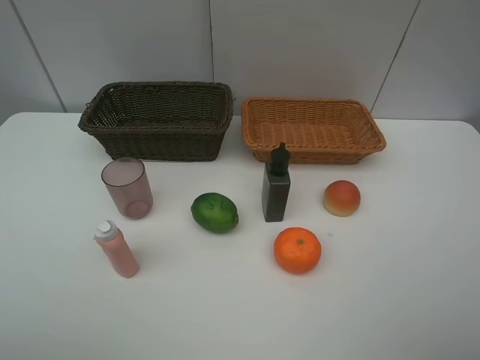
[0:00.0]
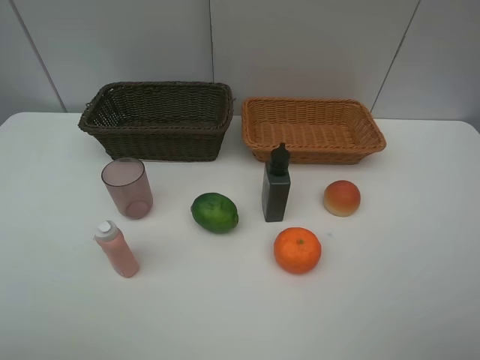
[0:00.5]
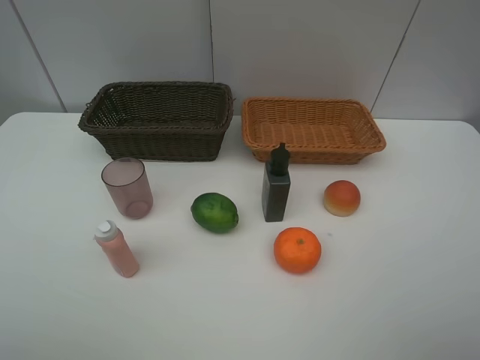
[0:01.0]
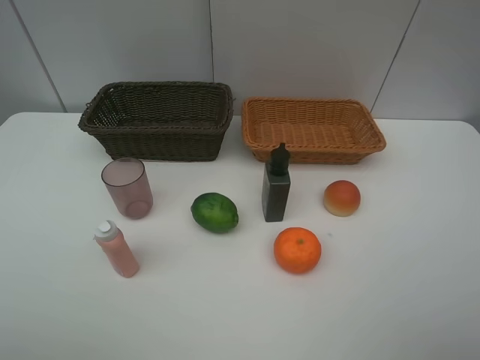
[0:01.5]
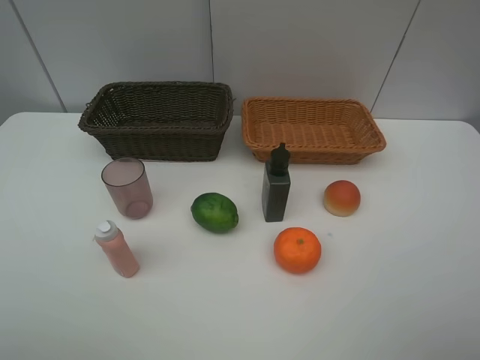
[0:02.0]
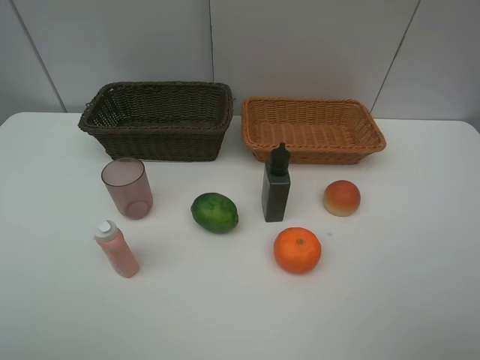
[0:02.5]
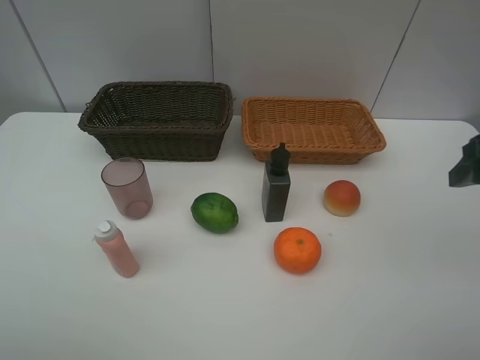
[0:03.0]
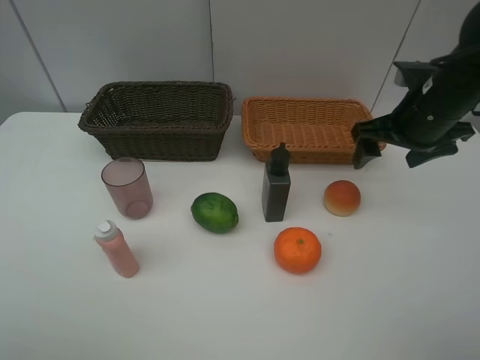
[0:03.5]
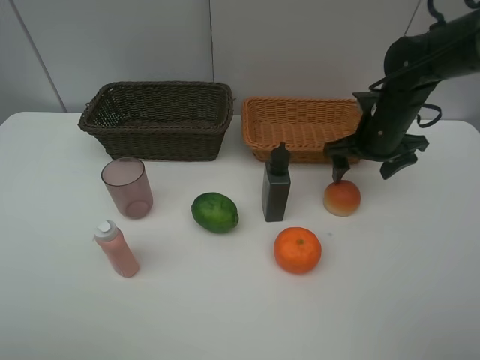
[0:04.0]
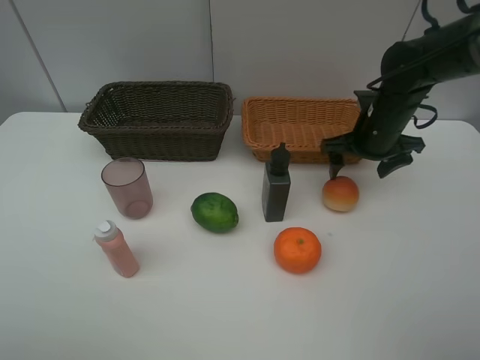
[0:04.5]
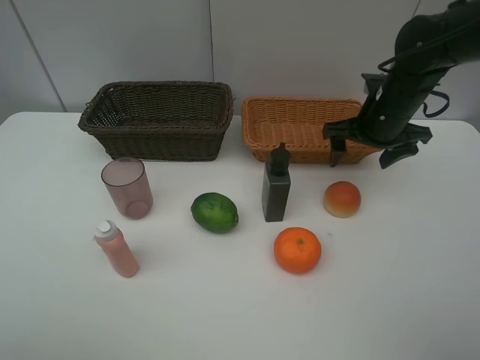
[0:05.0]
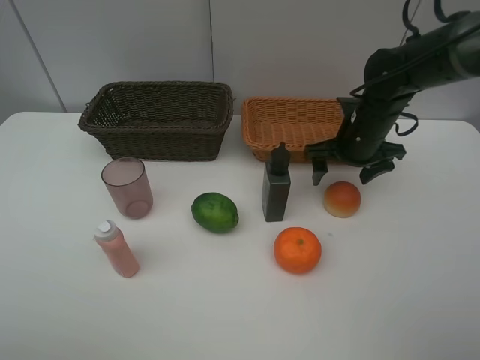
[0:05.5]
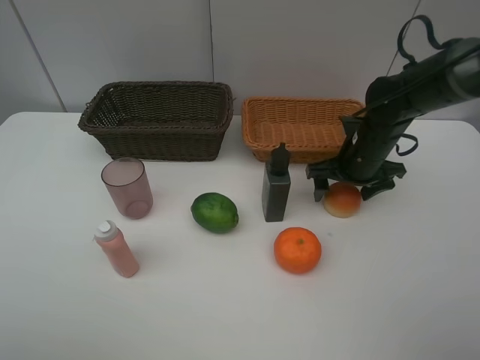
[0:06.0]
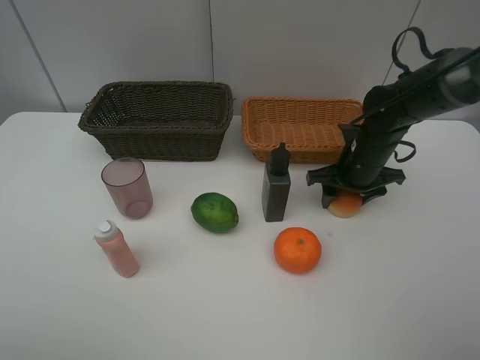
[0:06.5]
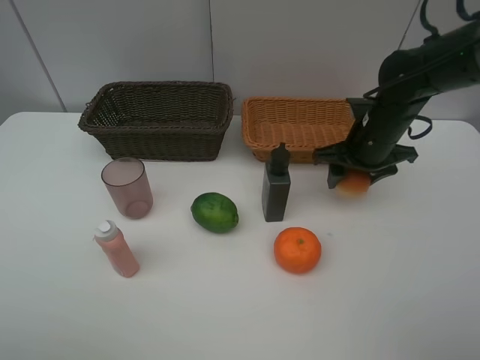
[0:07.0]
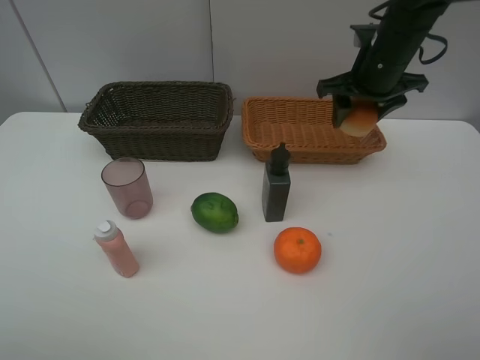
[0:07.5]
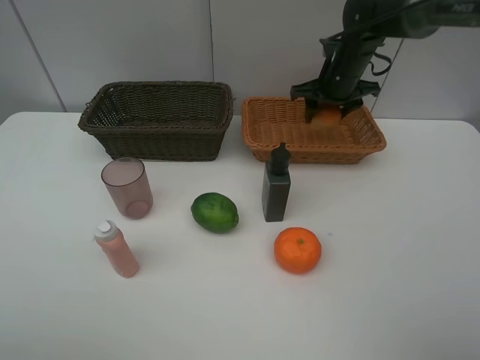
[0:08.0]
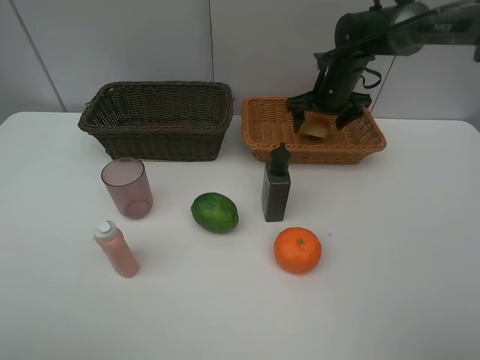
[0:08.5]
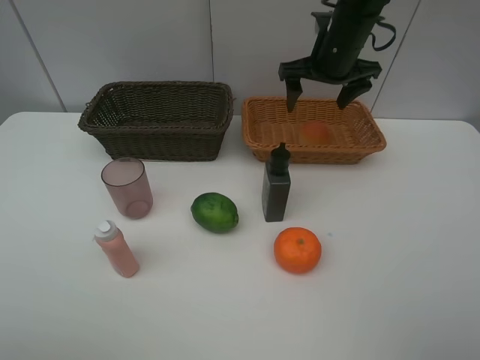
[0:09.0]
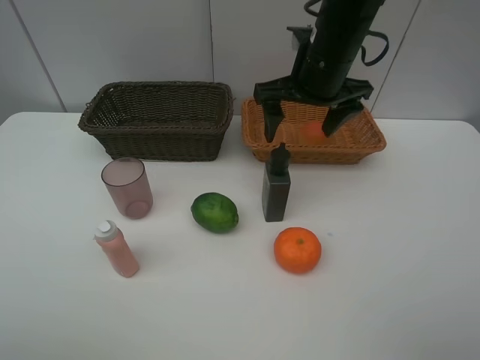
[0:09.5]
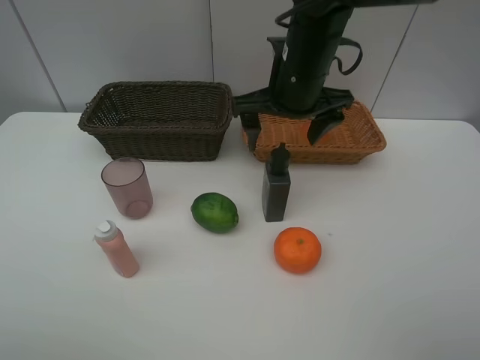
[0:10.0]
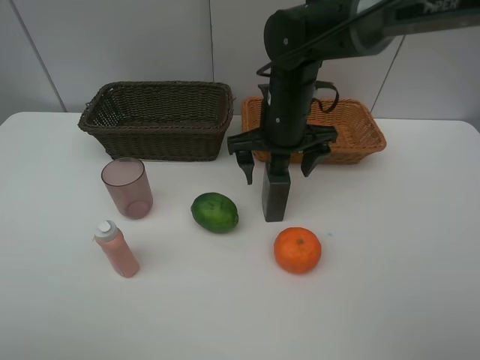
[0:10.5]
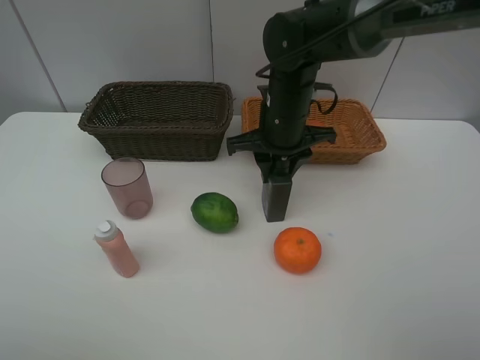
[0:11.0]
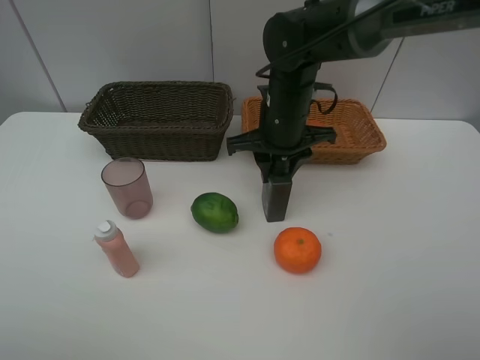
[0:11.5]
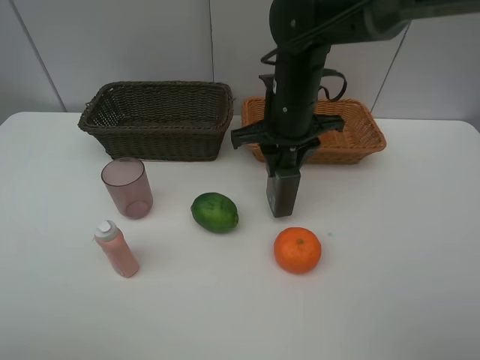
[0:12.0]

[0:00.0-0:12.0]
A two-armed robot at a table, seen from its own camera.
Task of the whole recording: place multiple objects separately in different baskets.
0.0 to 2.0 s: The two grippers keep their place.
2.0 to 4.0 s: The right gripper shifts about 35 cm forward.
4.0 to 6.0 s: The grippers move only a little.
6.0 to 8.0 s: The right gripper shifts some 15 cm forward and upward, and closes up.
8.0 to 10.0 s: The right gripper goes about 15 cm backward and to the left, and opens.
10.0 to 12.0 s: The right gripper closes its fingers.

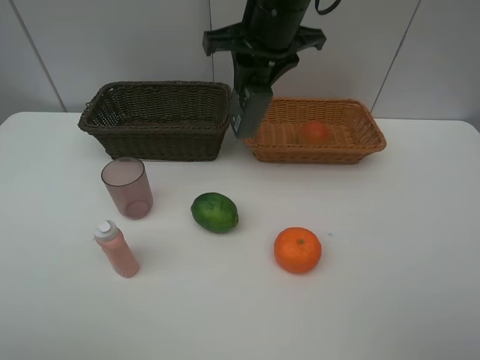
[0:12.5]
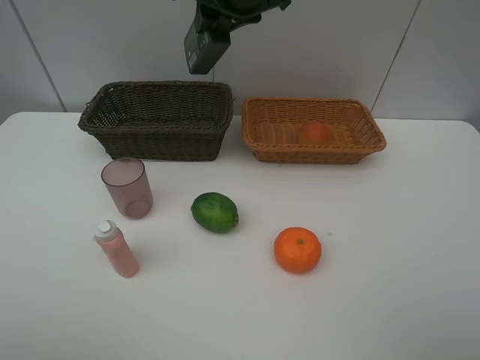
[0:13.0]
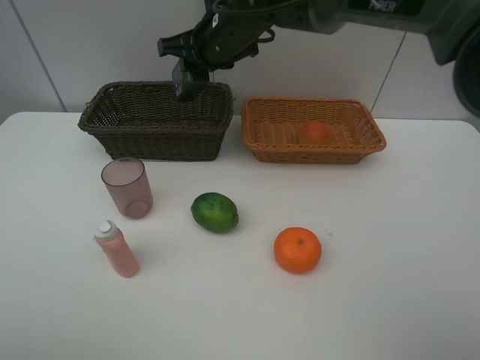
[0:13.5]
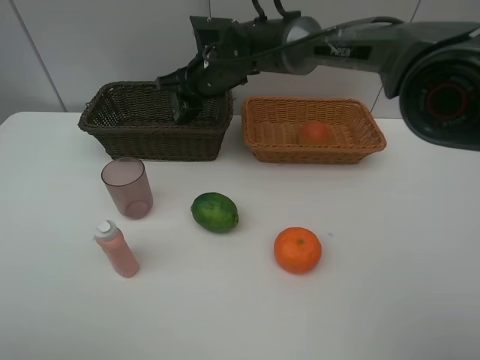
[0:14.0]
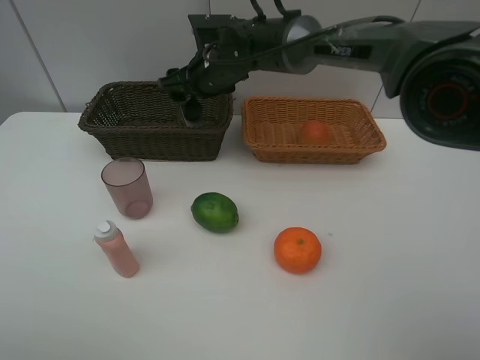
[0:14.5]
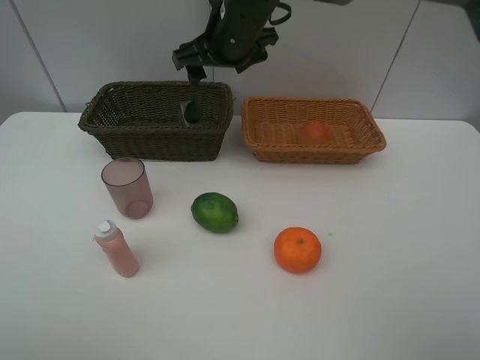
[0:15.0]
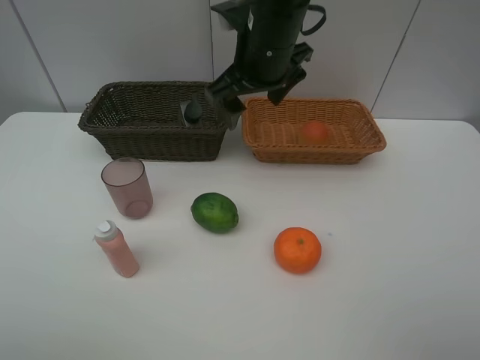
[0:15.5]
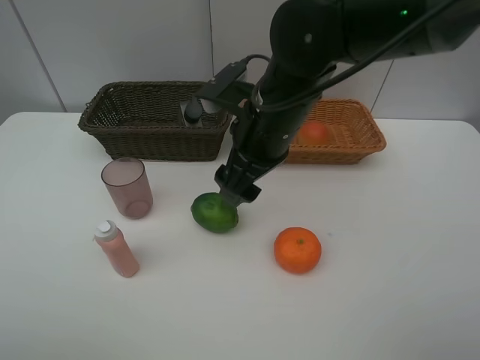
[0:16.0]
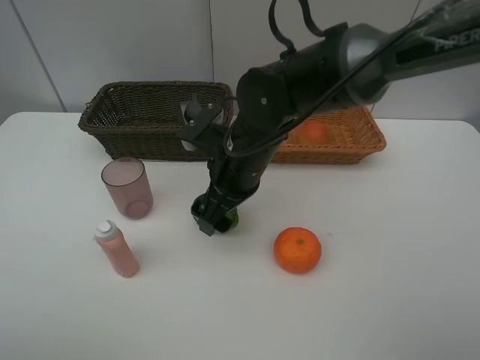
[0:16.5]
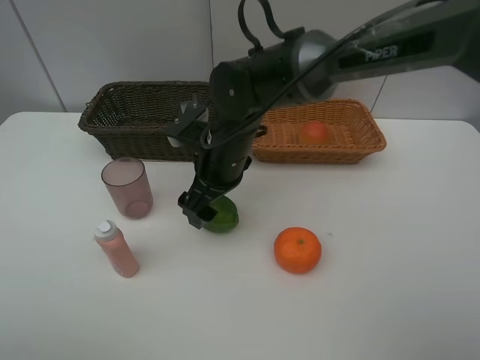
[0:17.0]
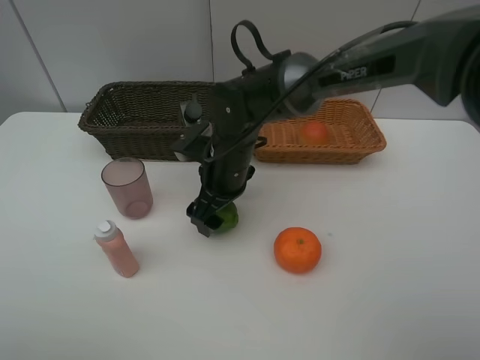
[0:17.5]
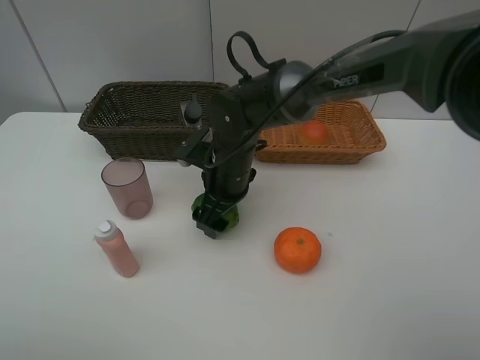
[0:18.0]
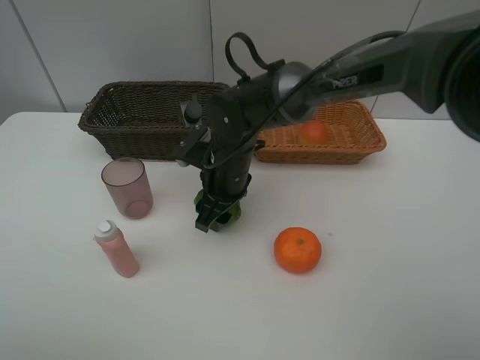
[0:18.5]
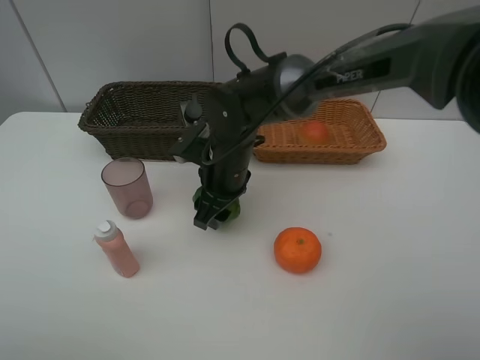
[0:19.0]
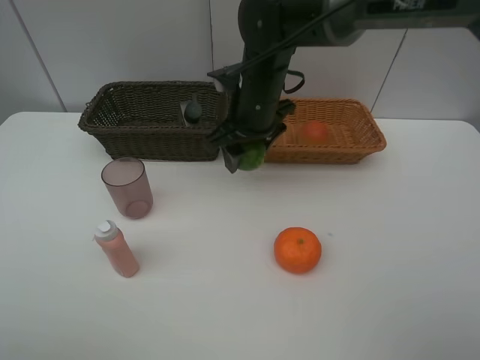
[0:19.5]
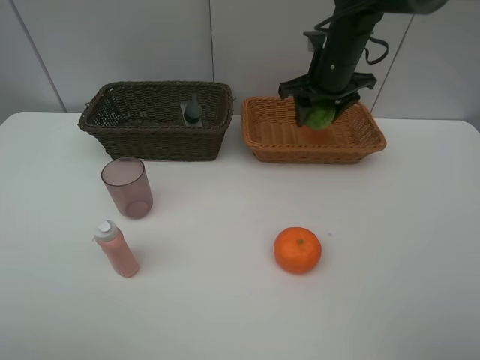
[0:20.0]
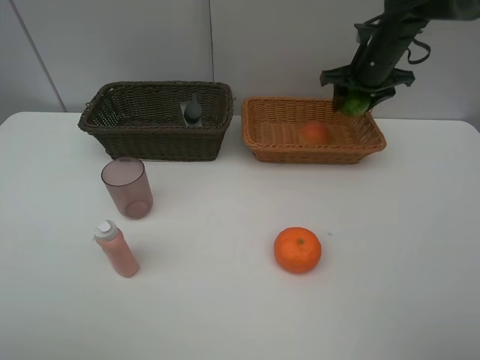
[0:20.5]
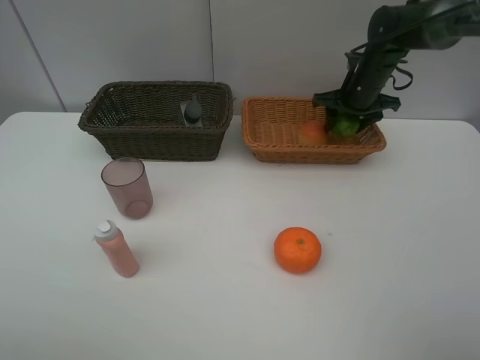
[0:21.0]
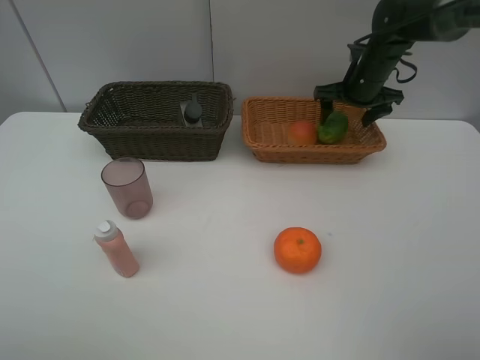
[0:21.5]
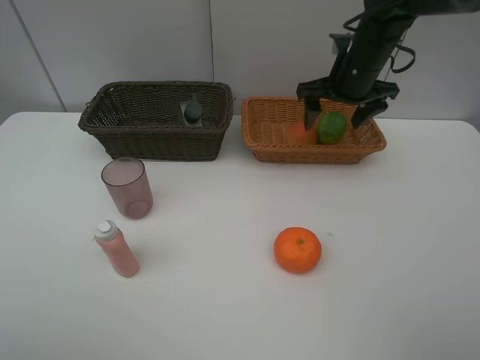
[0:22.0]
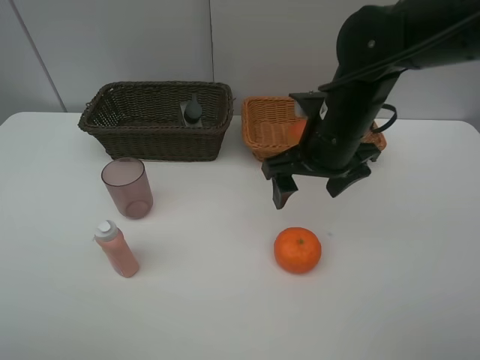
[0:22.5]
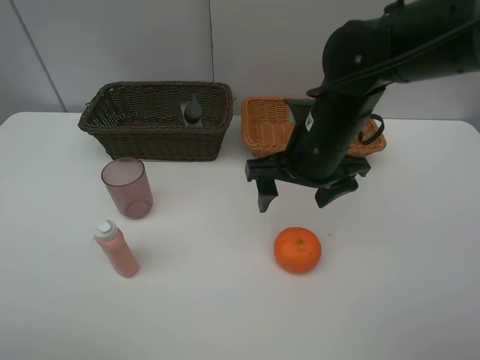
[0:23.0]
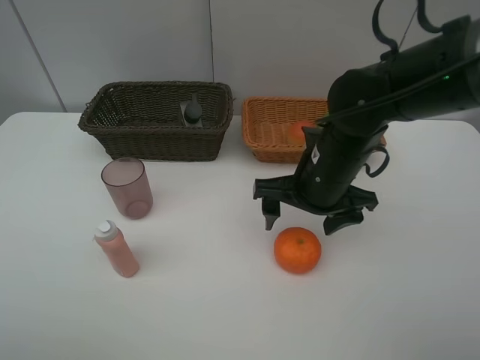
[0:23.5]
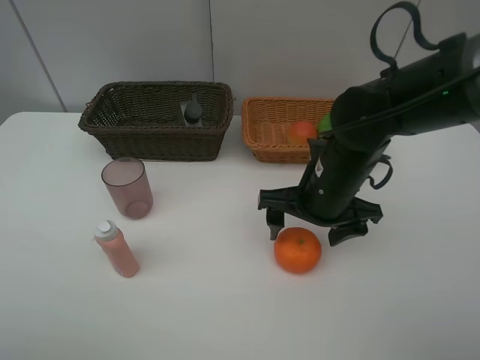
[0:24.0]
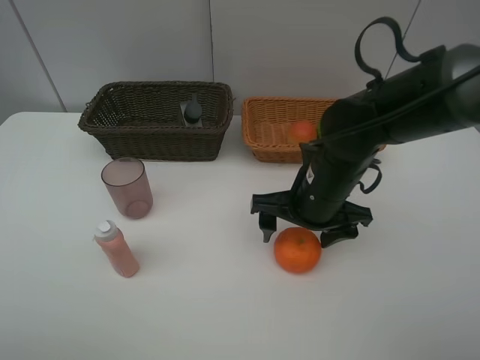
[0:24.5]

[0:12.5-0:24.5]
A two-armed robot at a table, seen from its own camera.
Task of the whole recording: place multiple objects separately in different baskets.
12.5 to 14.5 s: The right gripper moves downward, forward and to the left, about 15 cm, and opens its fingers.
14.5 to 16.5 s: The right gripper is displaced backward by approximately 15 cm.
16.5 to 18.5 s: The right gripper shifts by approximately 5 cm, and closes.
18.5 to 20.5 s: The right gripper shifts roughly 30 cm to the right, forward and upward.
20.5 to 22.5 s: The right gripper moves backward and to the left, approximately 25 cm, and opens up.
22.5 to 24.5 s: The right gripper travels downward by some 5 cm.

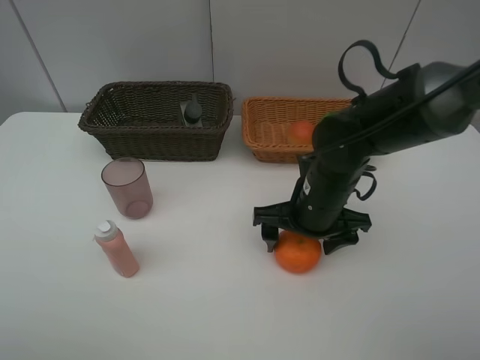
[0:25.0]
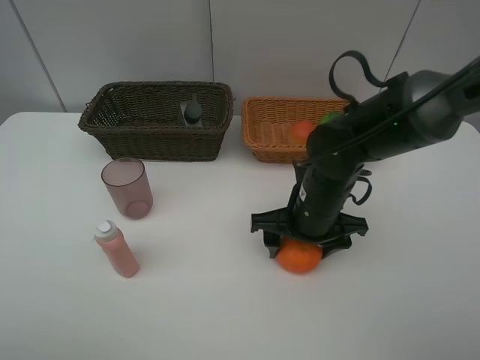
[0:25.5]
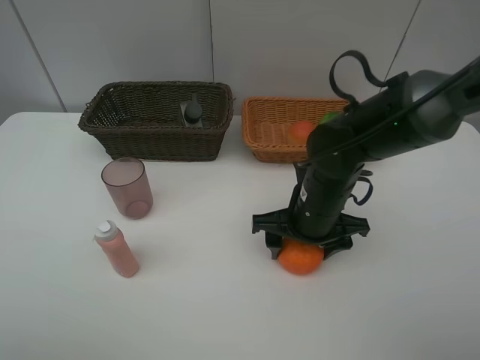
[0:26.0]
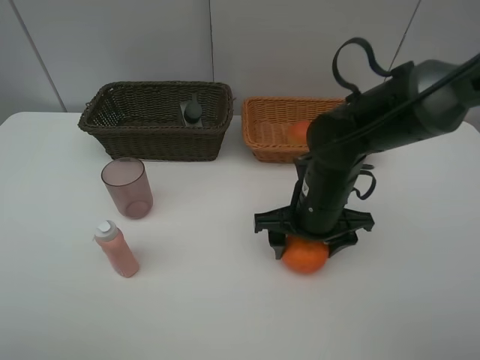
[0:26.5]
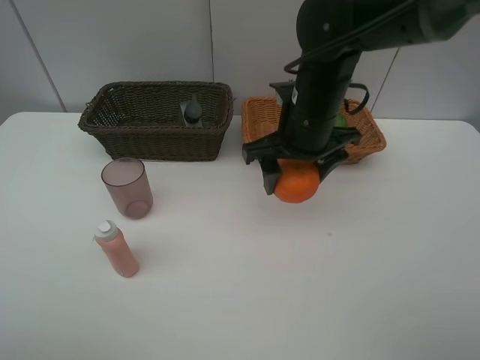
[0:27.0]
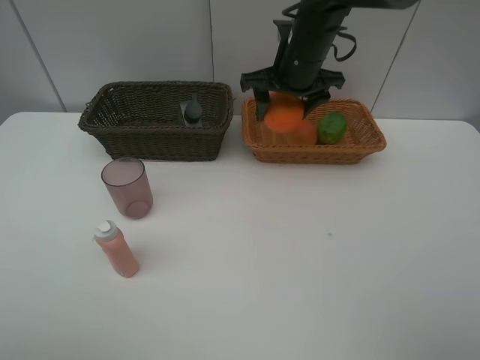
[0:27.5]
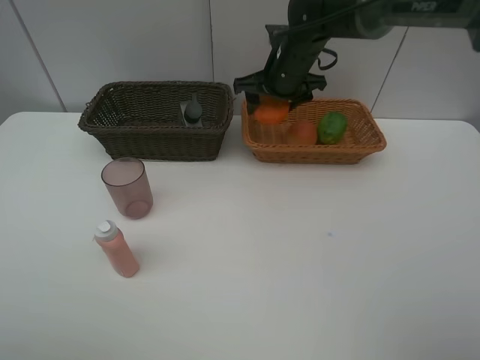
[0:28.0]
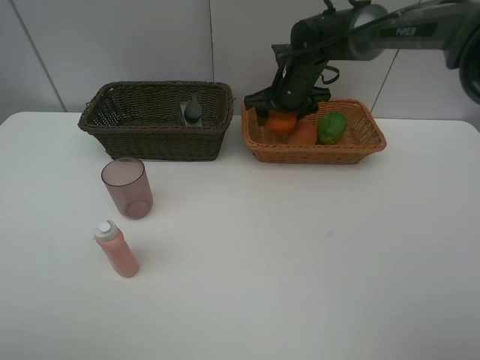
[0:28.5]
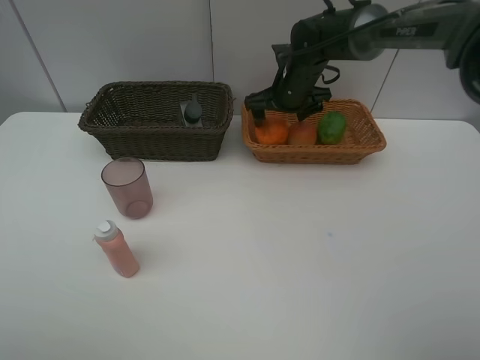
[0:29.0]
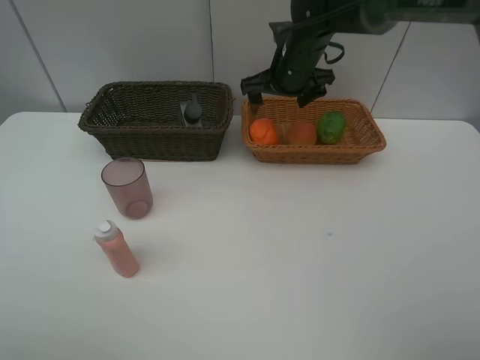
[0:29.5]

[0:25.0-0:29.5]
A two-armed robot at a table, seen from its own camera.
Task of the whole recording: place multiple objects separately in different baskets.
25.0 to 27.0 s: The right gripper shifts approximately 10 cm upward and forward.
27.0 to 29.5 s: The right gripper moves forward, roughly 15 cm, and opens its fingers.
